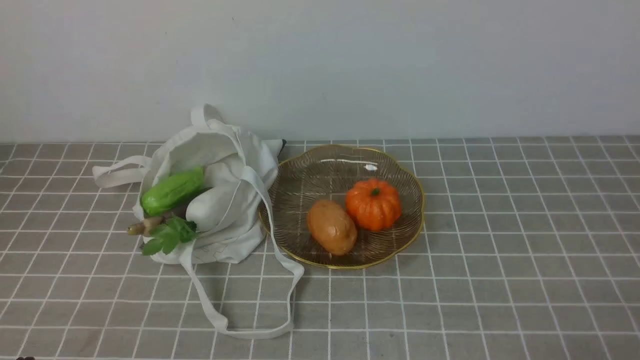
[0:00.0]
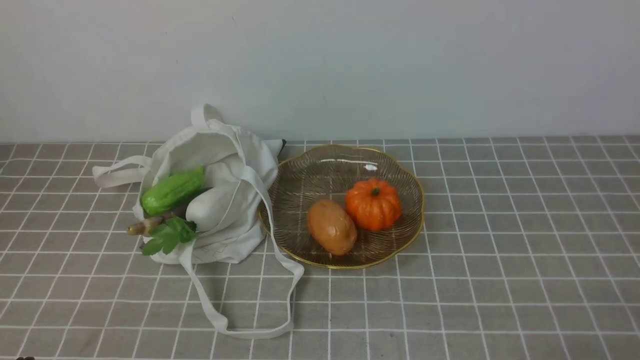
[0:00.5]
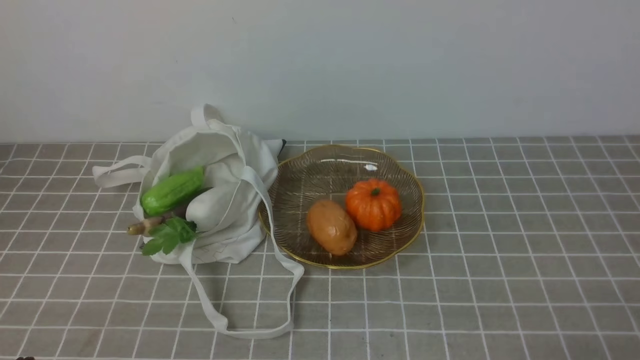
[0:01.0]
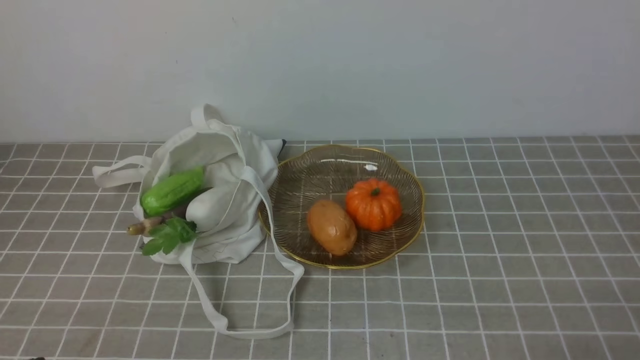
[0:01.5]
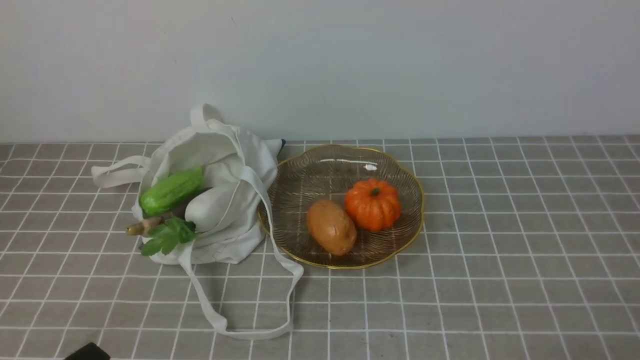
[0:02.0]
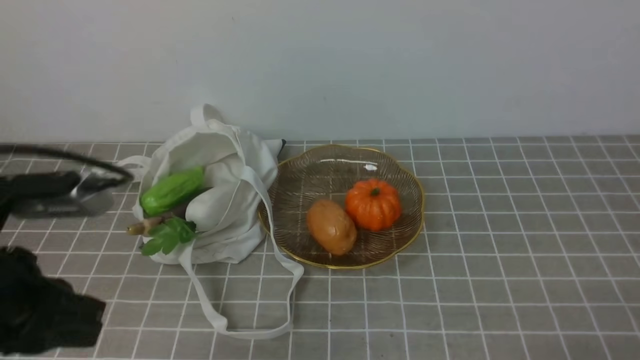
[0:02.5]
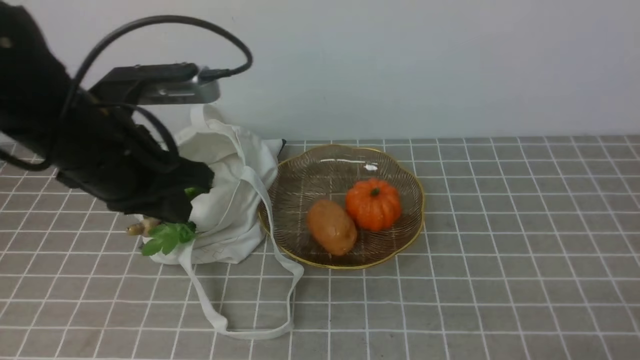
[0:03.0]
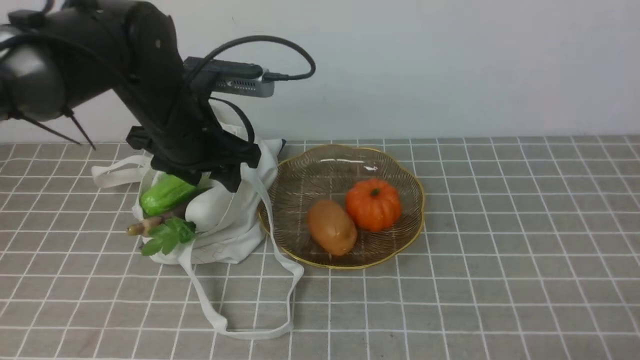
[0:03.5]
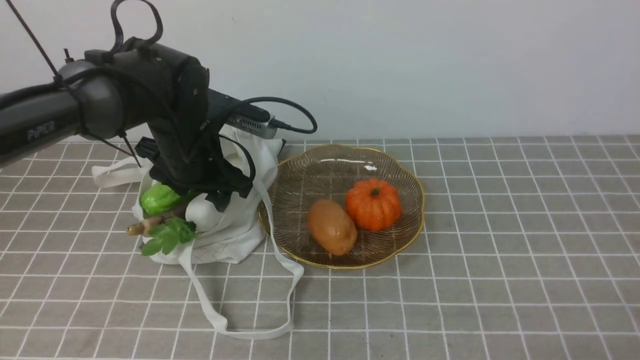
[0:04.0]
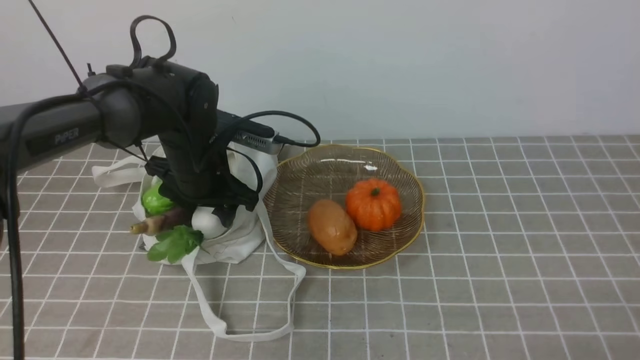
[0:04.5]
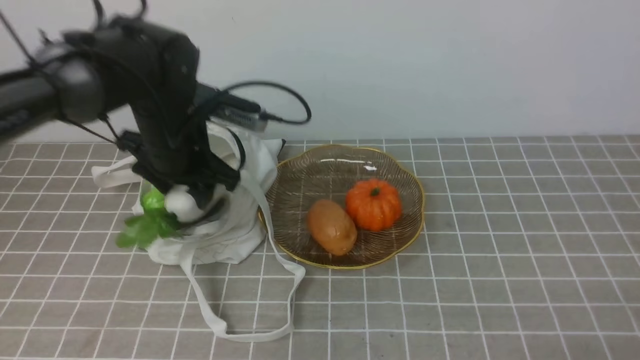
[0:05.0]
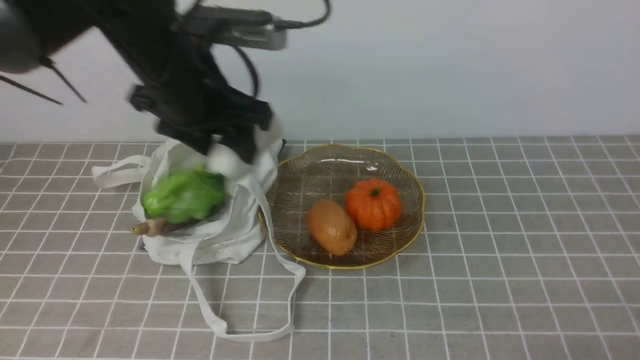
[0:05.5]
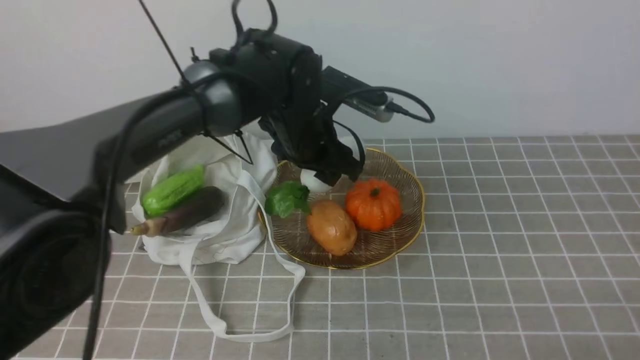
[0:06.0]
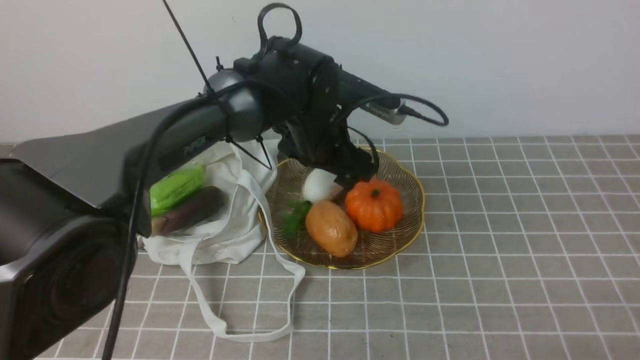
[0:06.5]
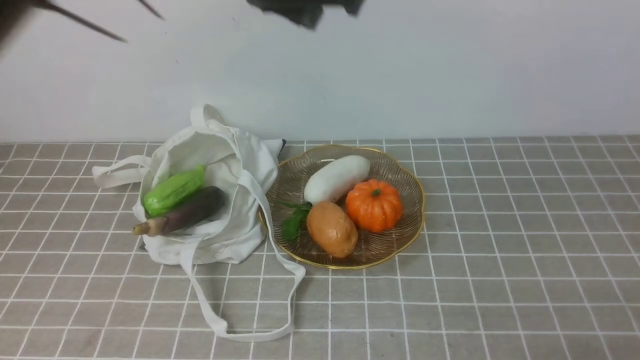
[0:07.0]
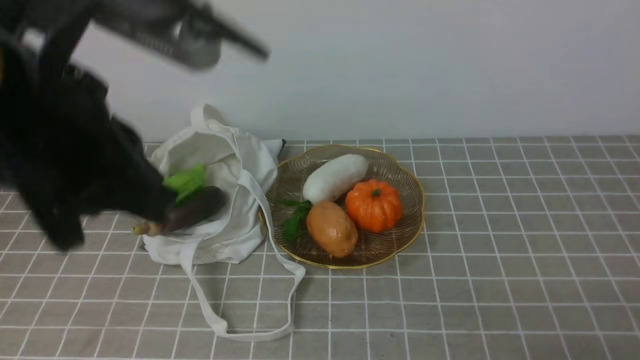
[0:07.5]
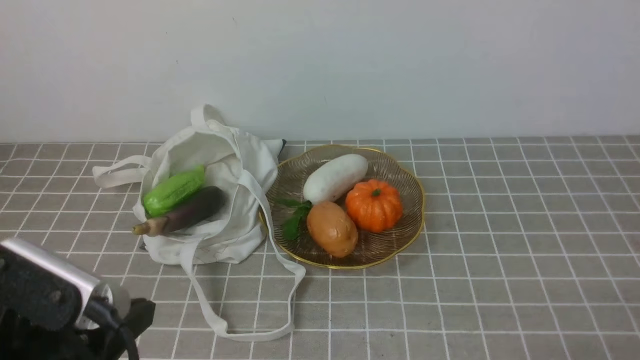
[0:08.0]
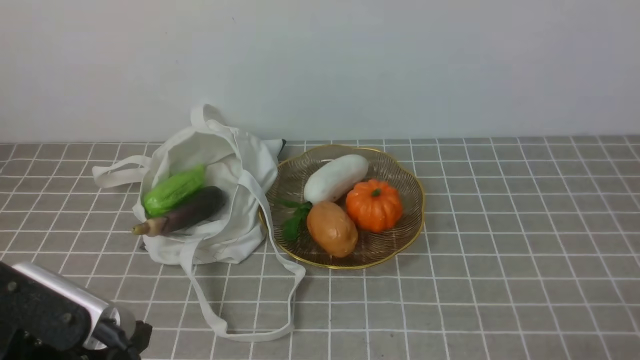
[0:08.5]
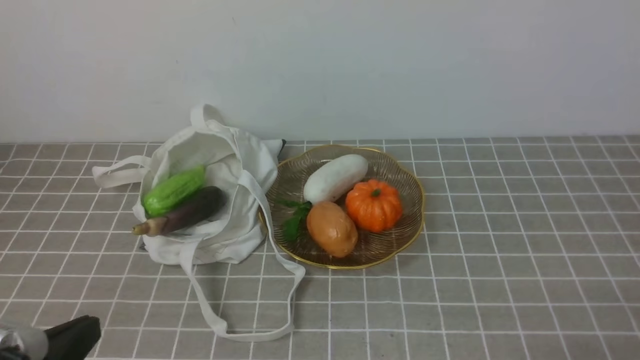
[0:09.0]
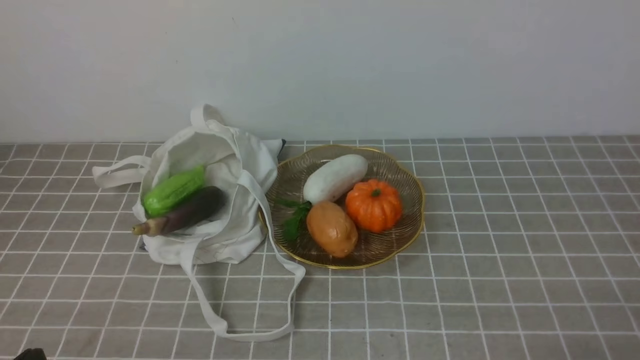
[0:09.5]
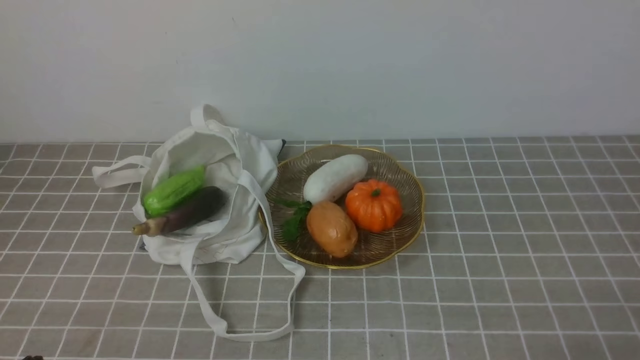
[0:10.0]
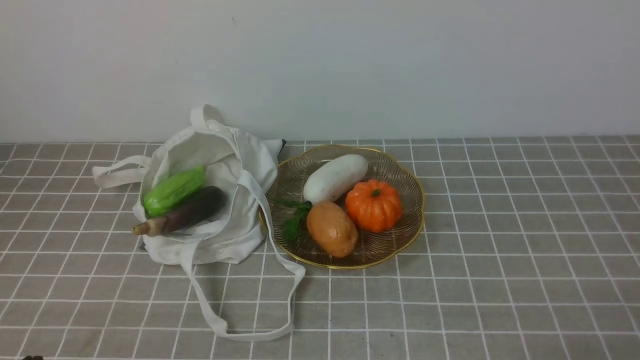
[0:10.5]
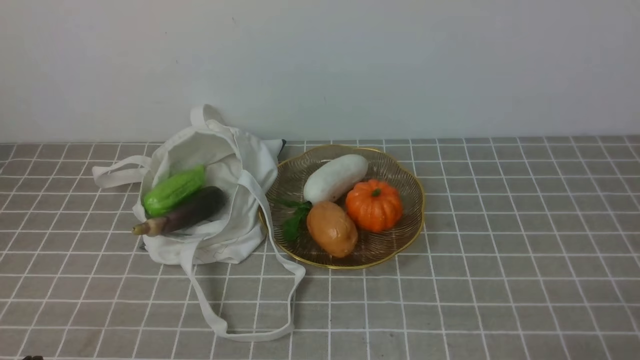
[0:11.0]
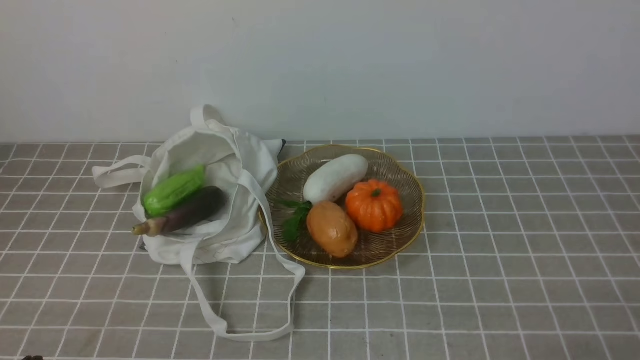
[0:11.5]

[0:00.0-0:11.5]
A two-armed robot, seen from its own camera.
Task of the whole recording: take vegetables from bag on grey coffee tablecloth place on plate.
Step, 0:00.0 to 0:04.5: Grasp the radish with left gripper.
Step, 0:05.0 to 0:06.5: Place the radish on the plate with left gripper.
0:02.0 to 0:04.0: The left gripper shifts roughly 35 cm forward, and opens up.
0:04.0 to 0:06.0: The left gripper heads to the right, covering about 15 cm.
0:06.0 to 0:07.5: The left gripper is displaced backward, upward and to the left by some 30 cm, and closes up.
0:07.5 to 0:09.5: The left gripper heads downward, backward and to the left, covering some 30 cm.
0:09.5 to 0:11.5: The two grippers keep their place.

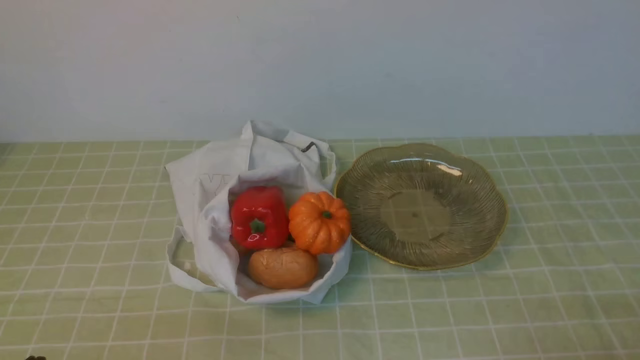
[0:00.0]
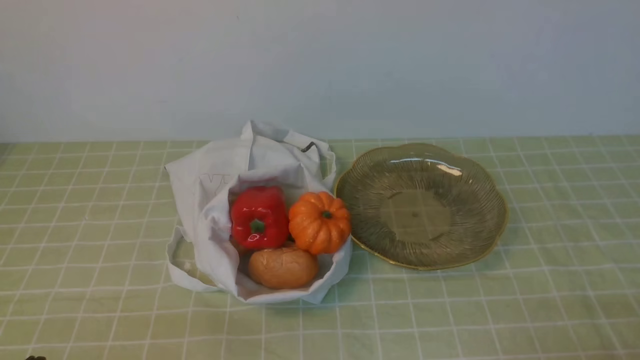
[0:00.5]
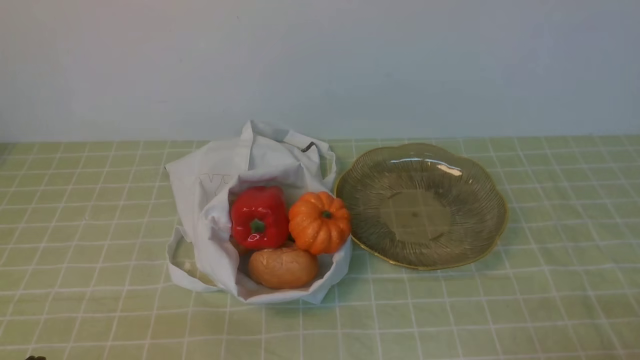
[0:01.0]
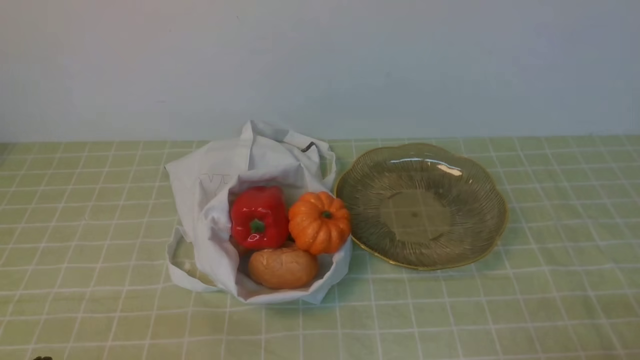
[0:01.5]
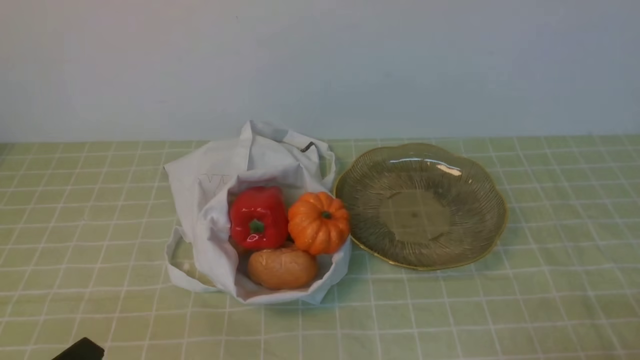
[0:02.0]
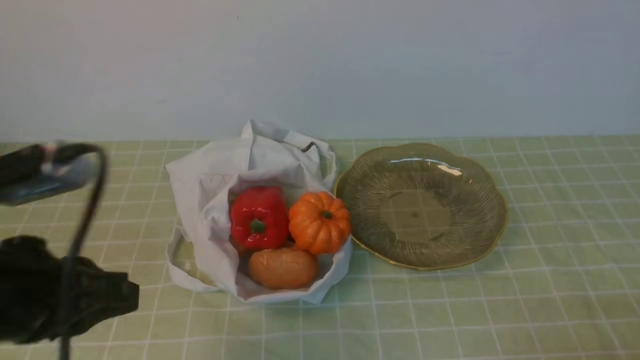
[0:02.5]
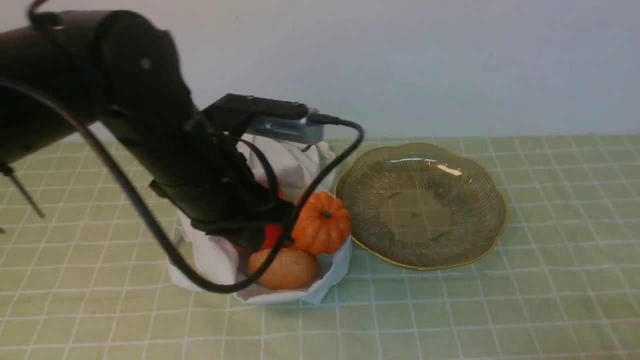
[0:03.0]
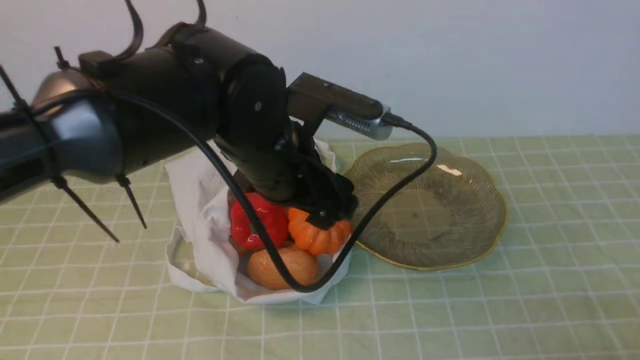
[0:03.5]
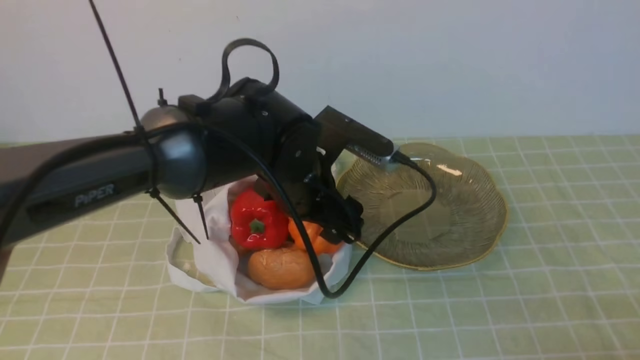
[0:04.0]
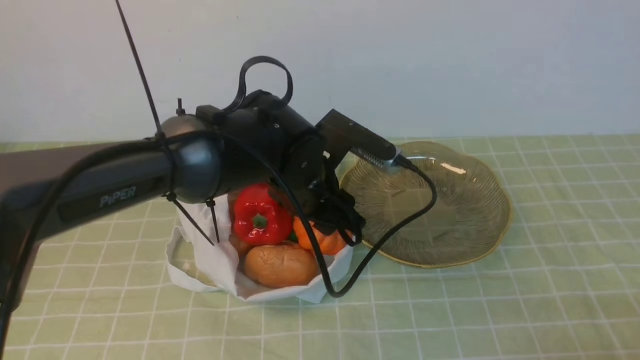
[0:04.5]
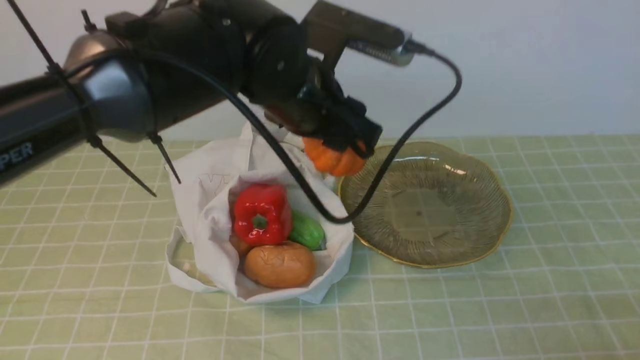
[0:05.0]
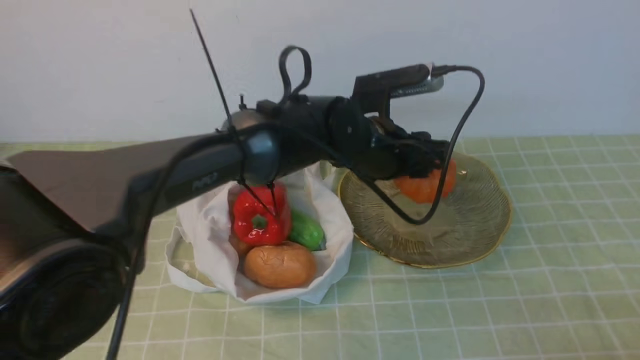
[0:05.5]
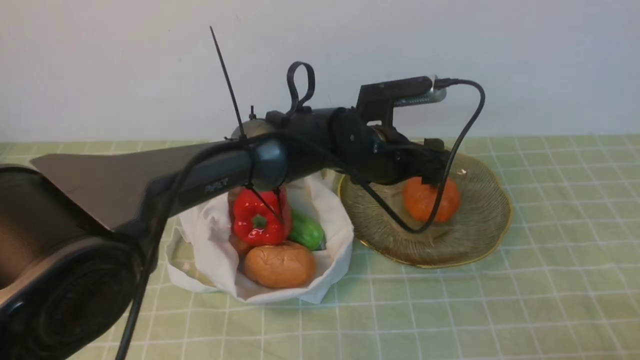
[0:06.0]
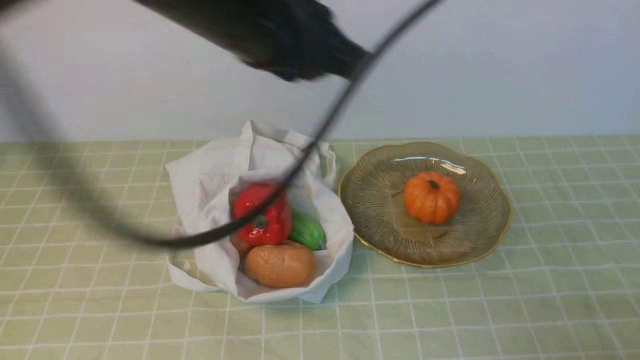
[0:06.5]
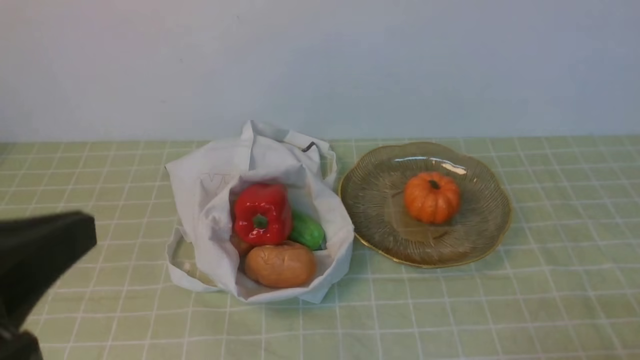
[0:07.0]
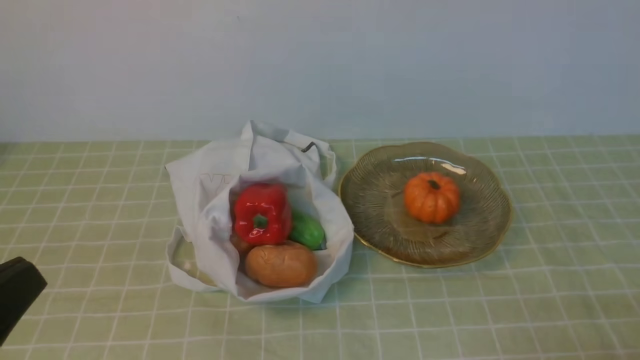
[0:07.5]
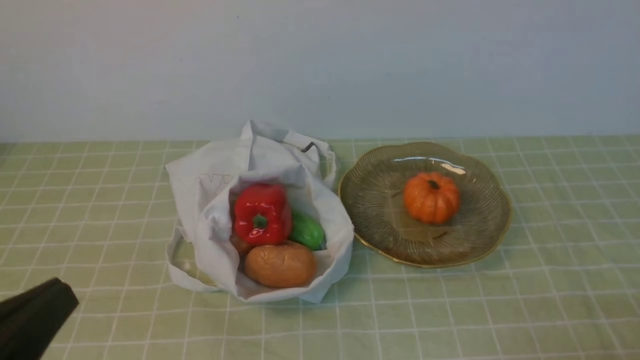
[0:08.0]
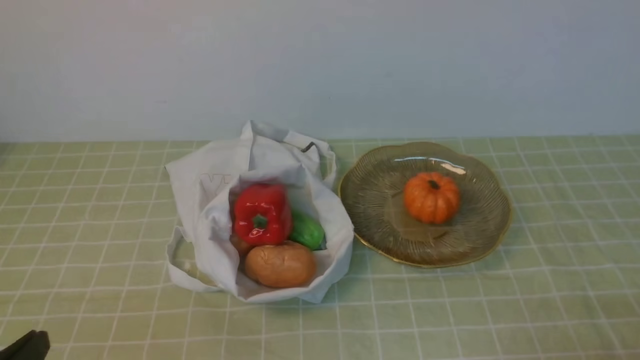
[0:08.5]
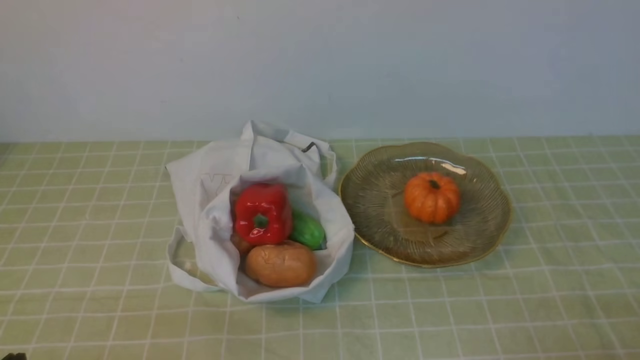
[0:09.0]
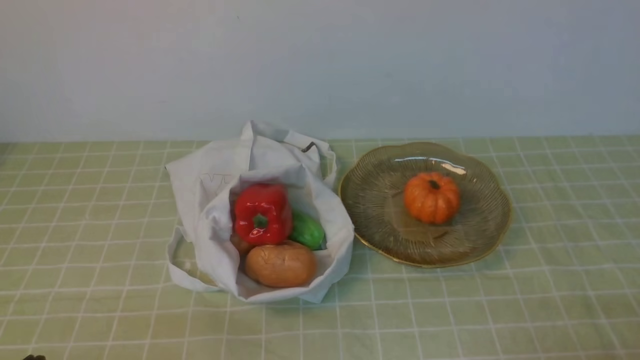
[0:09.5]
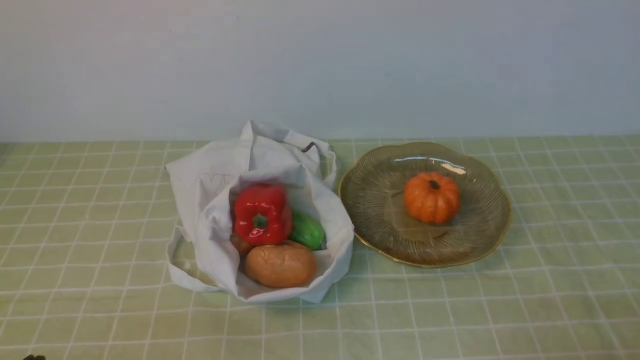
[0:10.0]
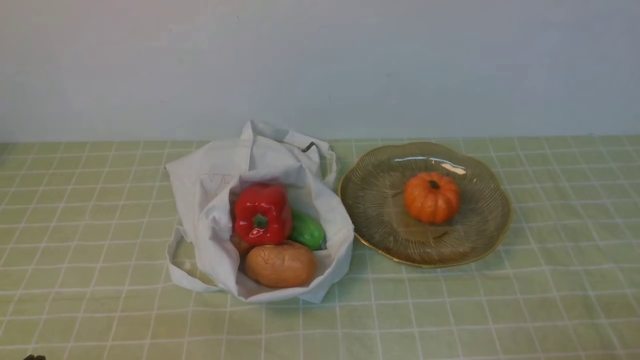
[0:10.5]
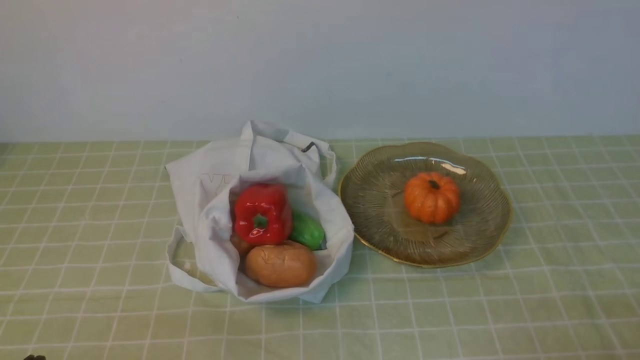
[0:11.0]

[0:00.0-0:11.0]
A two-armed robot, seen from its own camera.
Task of the whole recording: take vegetables from bag on green coffee tablecloth place on plate.
Step, 0:00.0 to 0:04.0: Grasp the pumpkin with left gripper.
Step, 0:04.5 to 0:06.0: Place the pumpkin on the plate with left gripper.
0:02.0 to 0:03.5: The left gripper is displaced forward and to the right by about 30 cm, and opens up.
0:03.5 to 0:05.5: The left gripper is displaced forward and to the right by some 10 cm.
0:05.5 to 0:07.5: The left gripper heads backward and to the left, covering some 40 cm, and closes its fingers.
0:07.5 to 0:09.0: The left gripper travels downward by approximately 15 cm.
